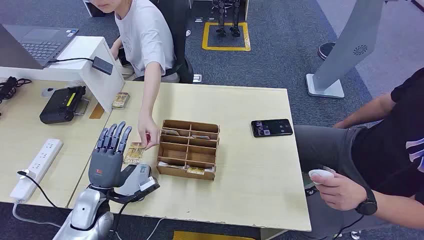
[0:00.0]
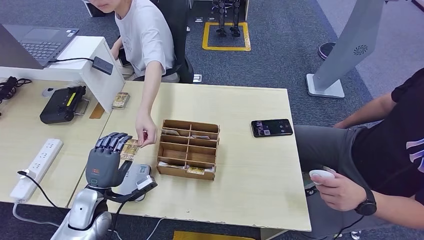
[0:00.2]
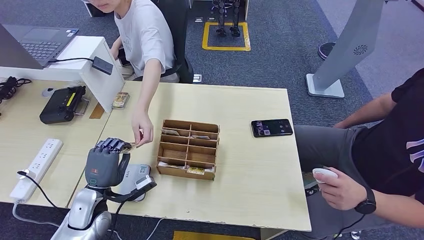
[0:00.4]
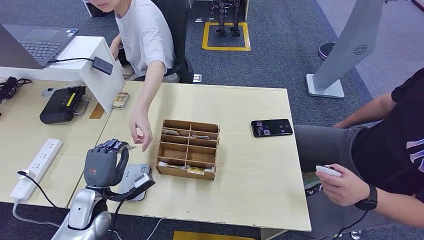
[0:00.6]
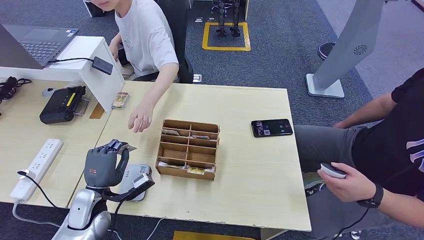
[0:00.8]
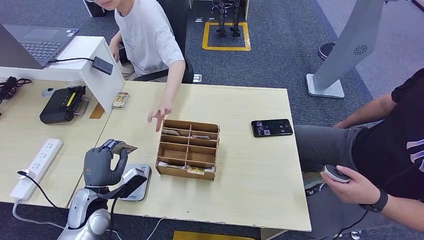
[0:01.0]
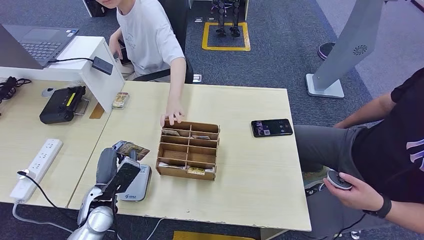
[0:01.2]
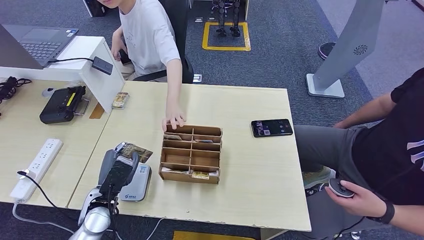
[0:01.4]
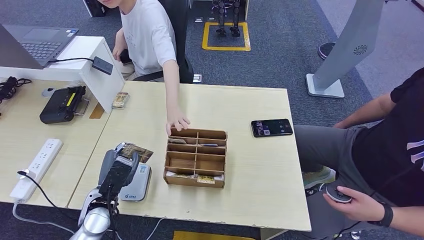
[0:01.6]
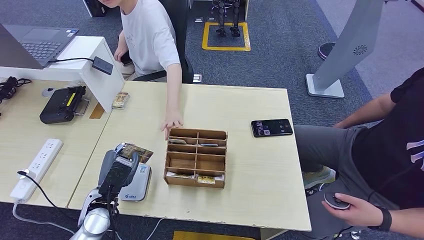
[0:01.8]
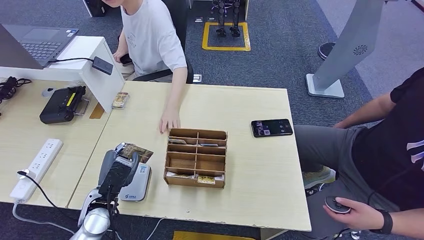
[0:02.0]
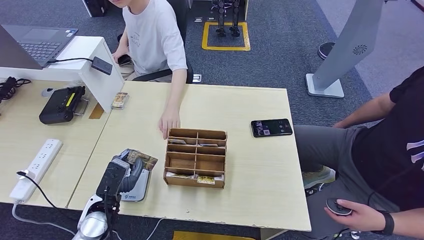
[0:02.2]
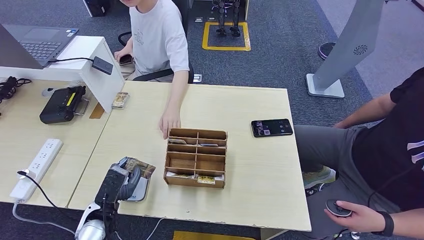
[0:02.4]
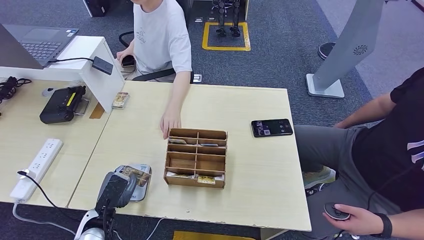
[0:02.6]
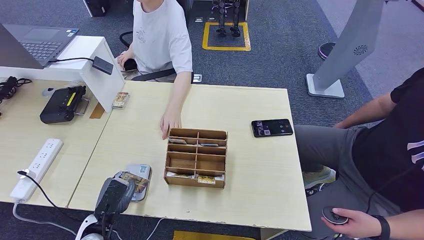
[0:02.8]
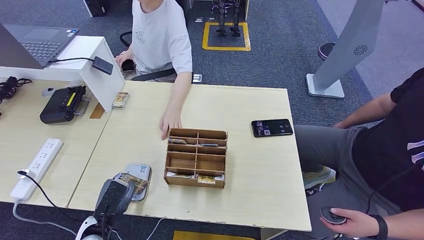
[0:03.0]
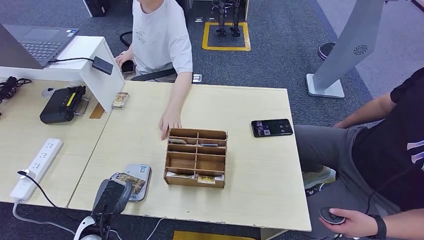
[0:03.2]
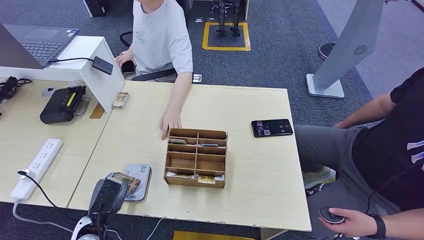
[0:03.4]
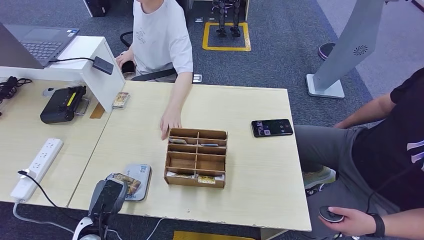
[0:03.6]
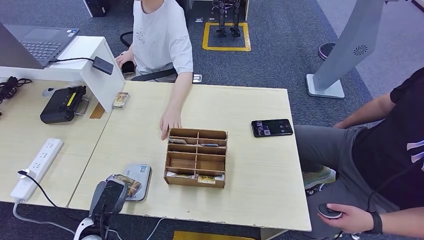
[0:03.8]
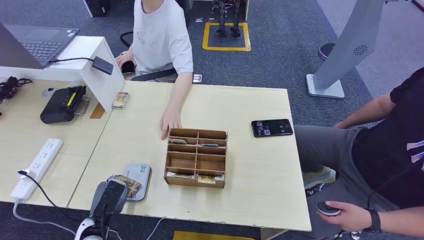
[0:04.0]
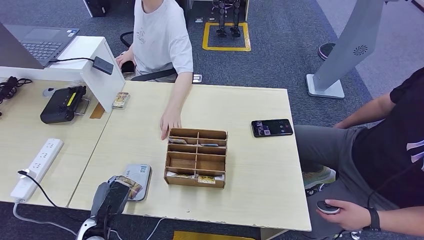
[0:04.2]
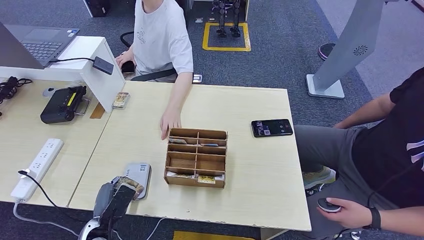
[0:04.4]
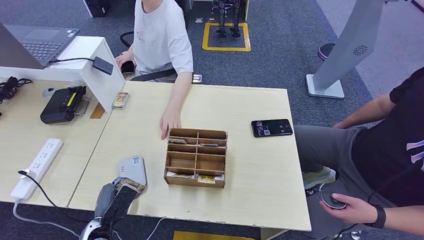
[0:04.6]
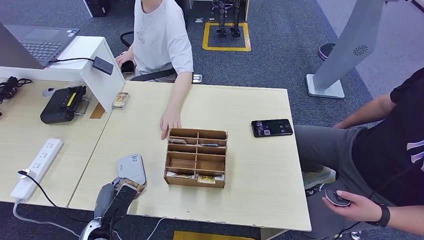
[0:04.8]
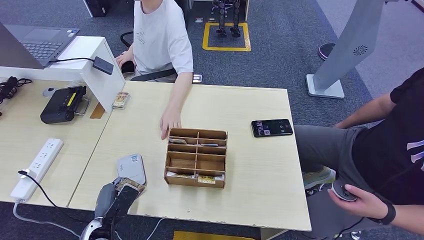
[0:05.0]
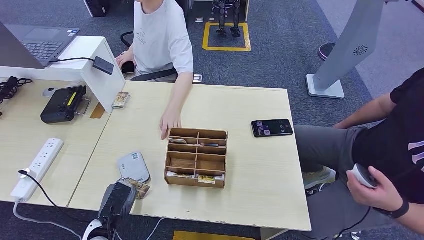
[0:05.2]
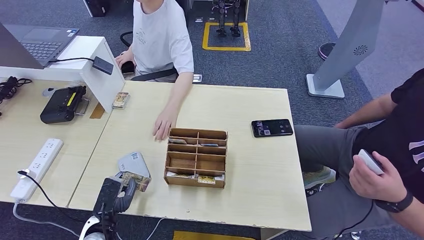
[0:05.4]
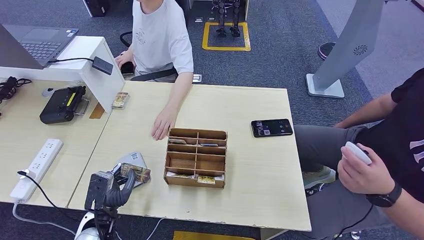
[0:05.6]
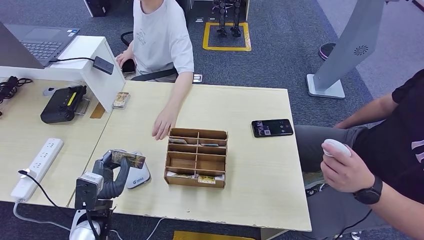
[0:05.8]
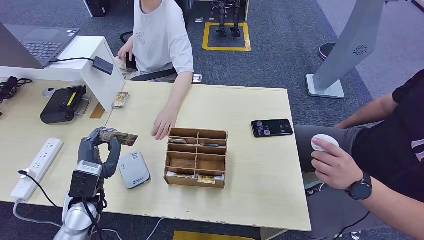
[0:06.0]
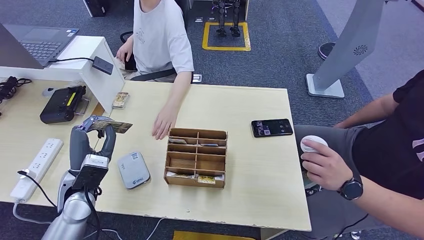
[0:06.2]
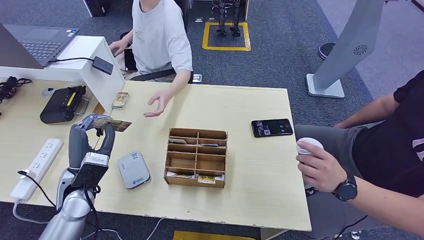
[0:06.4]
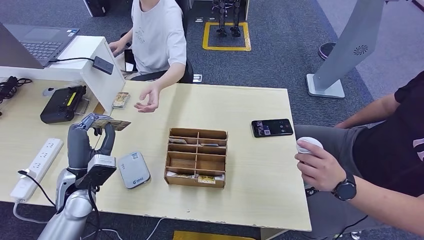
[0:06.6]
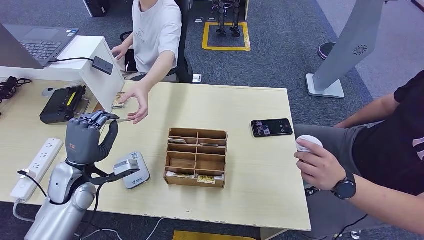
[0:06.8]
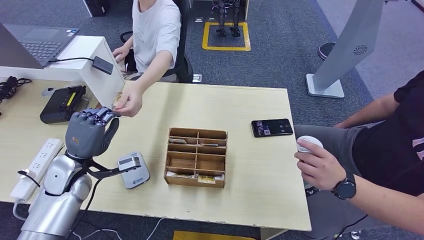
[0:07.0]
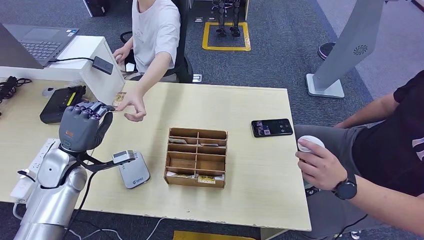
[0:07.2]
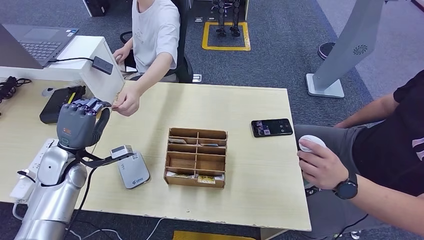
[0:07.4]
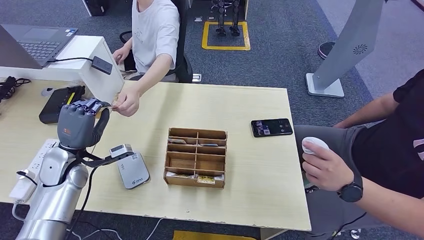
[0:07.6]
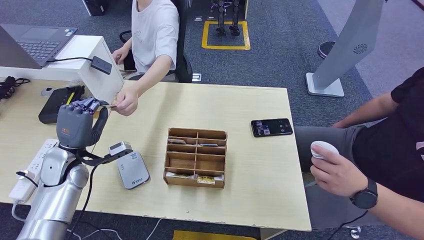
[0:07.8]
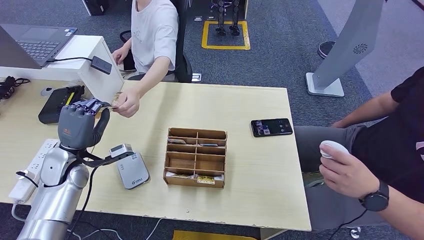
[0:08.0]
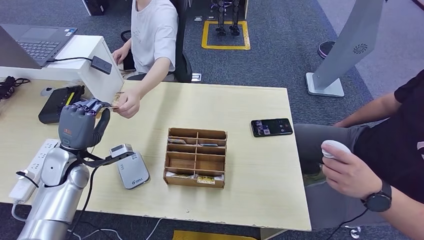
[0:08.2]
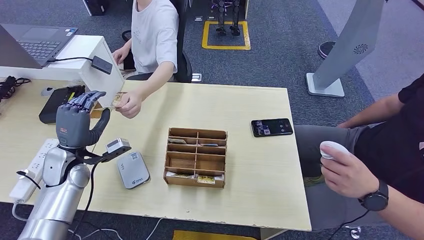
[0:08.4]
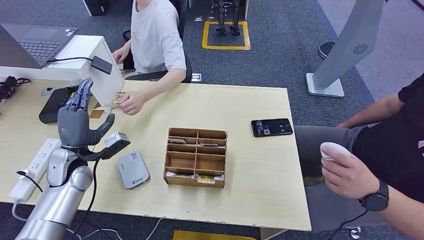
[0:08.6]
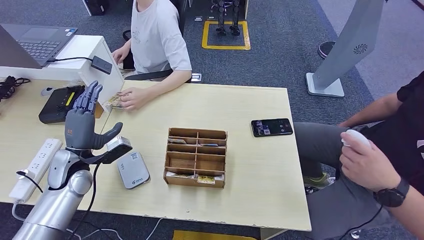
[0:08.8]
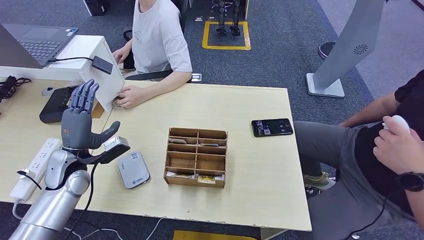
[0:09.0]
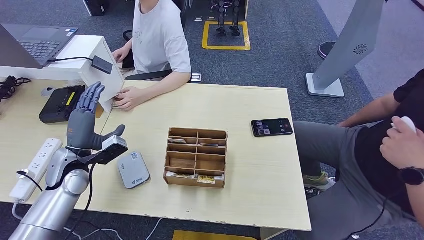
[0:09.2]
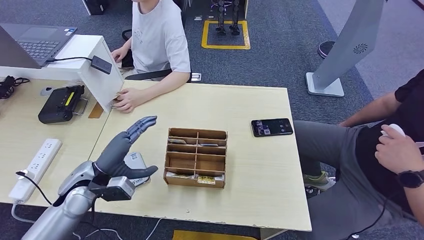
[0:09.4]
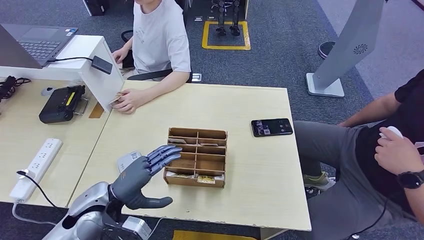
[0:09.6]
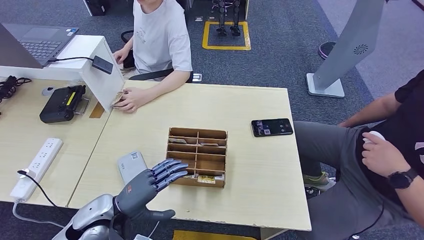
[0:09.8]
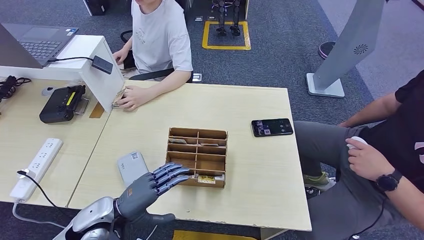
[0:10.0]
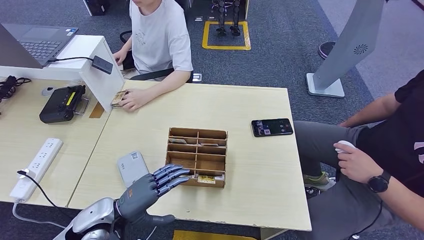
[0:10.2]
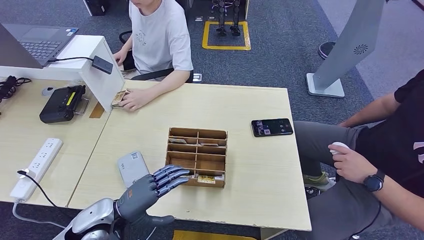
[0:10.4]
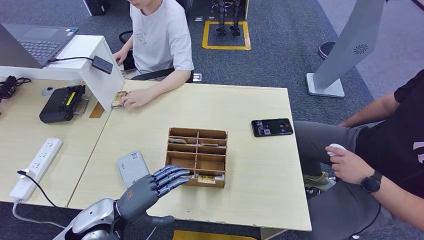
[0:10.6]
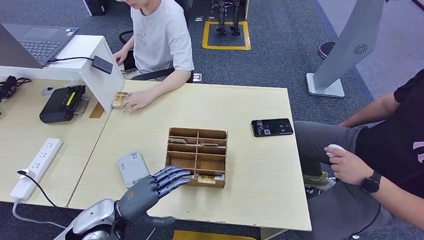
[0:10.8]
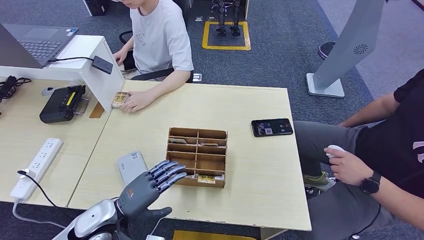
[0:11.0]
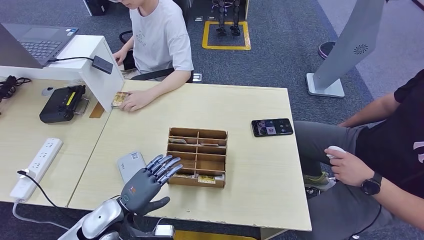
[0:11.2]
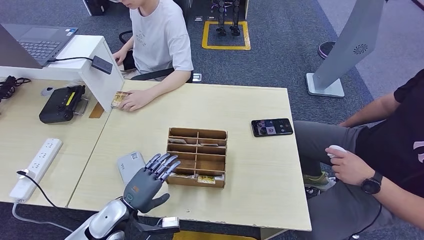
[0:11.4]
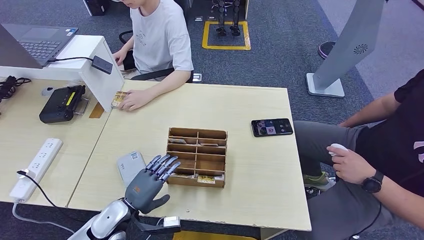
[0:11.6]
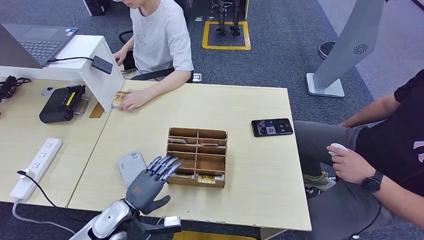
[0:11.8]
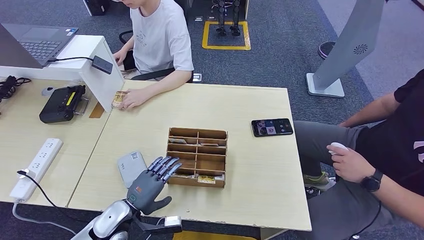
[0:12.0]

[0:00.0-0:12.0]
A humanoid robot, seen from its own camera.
Step, 0:00.0 to 0:01.4: Take the ID card from the person's hand.
Step, 0:01.8 to 0:05.0: Place the ID card on the card reader.
Step, 0:05.2 to 0:08.4: Hand the ID card to the person.
0:01.6 to 0:03.0: The left hand heads backward and downward, covering about 10 cm.
0:03.0 to 0:04.4: There are only small adjustments of the hands.
0:04.4 to 0:06.0: The left hand goes some 15 cm upward and forward.
0:06.0 to 0:07.6: The left hand shifts approximately 10 cm forward and to the left.
0:09.0 to 0:10.4: The left hand moves backward and to the right, roughly 15 cm.
0:10.4 to 0:12.0: The left hand moves downward, some 5 cm.

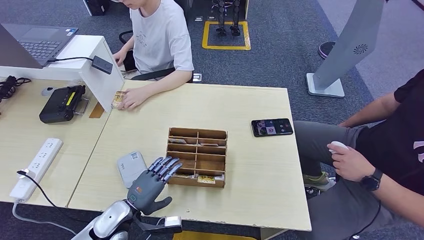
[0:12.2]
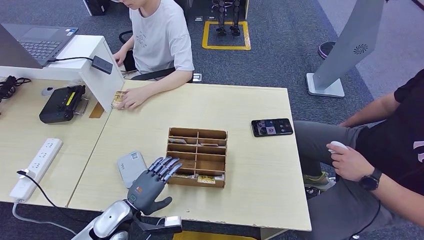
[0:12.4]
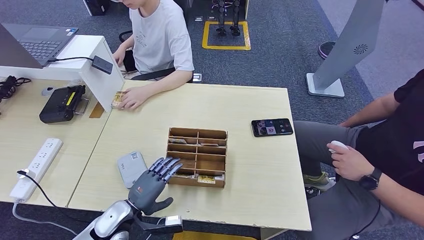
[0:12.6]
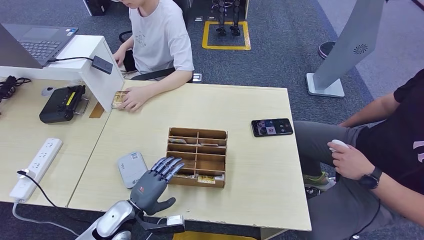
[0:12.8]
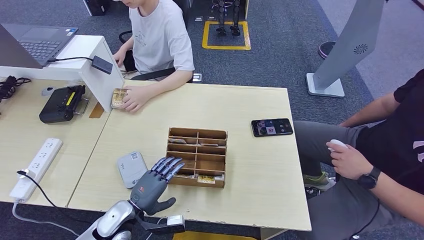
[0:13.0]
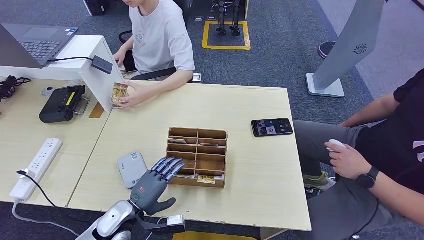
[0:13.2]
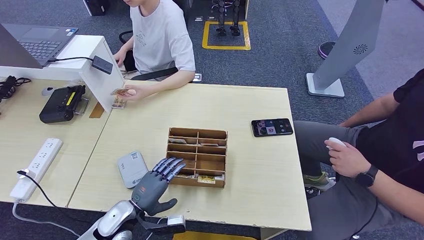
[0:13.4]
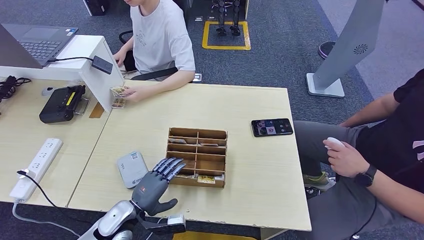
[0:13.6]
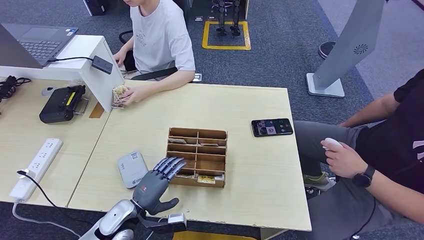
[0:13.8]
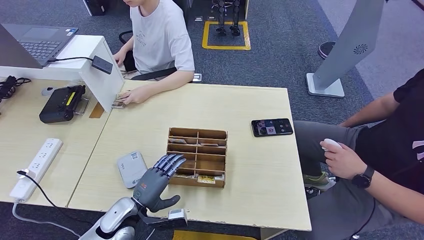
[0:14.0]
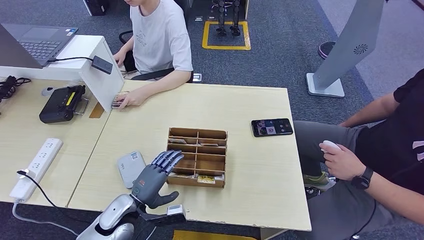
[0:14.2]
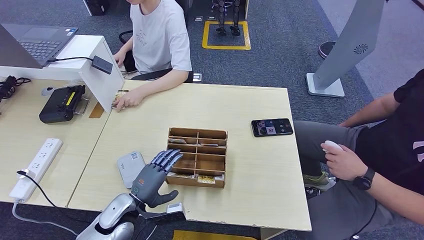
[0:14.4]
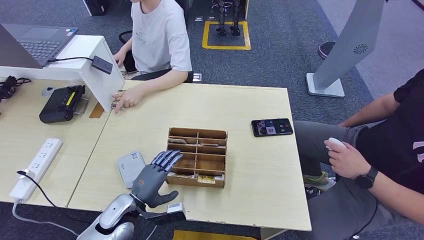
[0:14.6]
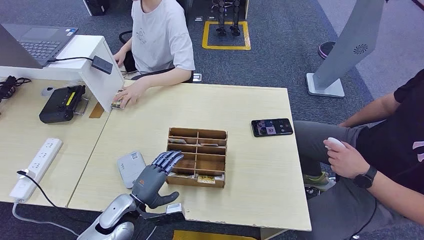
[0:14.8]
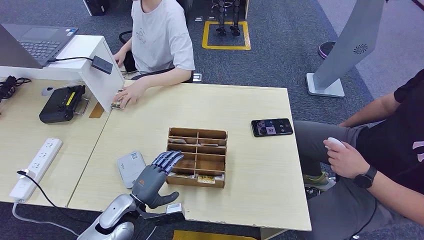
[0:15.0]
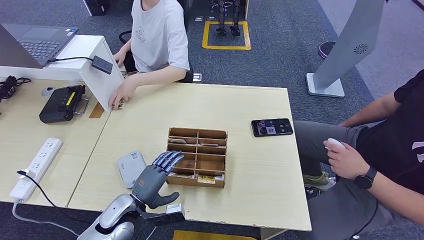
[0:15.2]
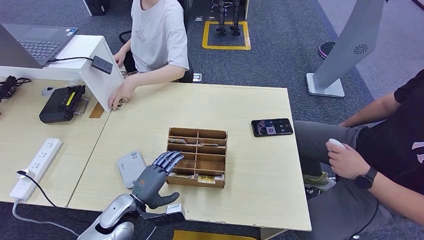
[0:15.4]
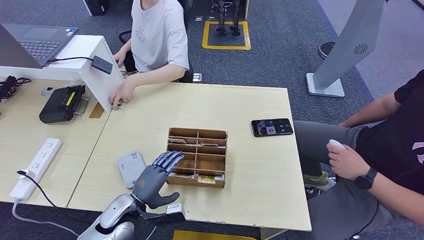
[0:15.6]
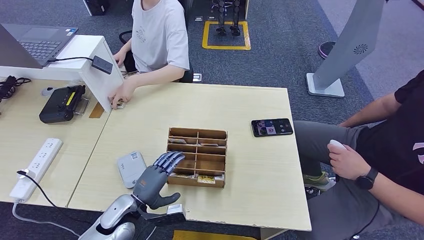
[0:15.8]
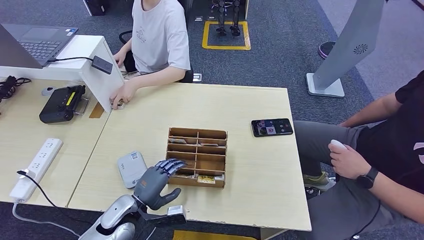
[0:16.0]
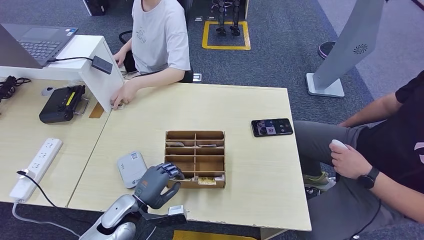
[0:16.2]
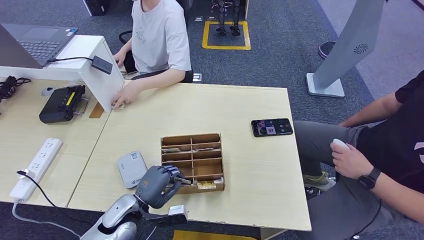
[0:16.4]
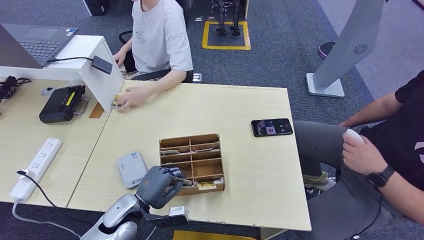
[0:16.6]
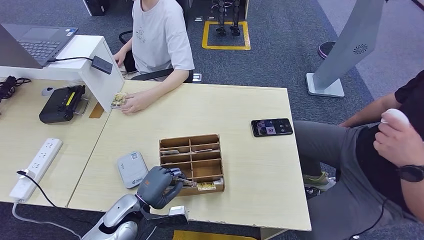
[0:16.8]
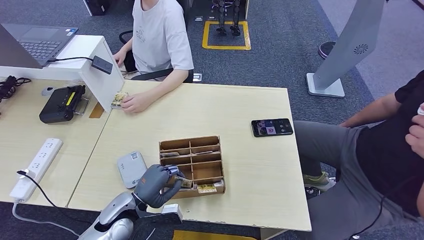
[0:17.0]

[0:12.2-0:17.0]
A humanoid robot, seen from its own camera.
0:12.2 to 0:15.4: The hands move only a little.
0:15.4 to 0:17.0: The hands move only a little.
